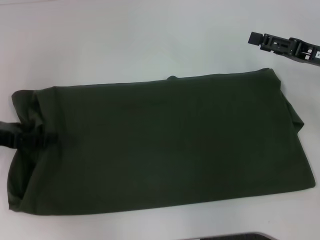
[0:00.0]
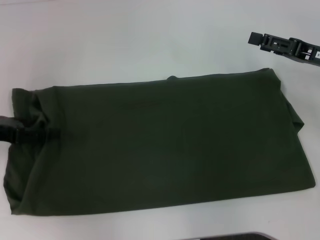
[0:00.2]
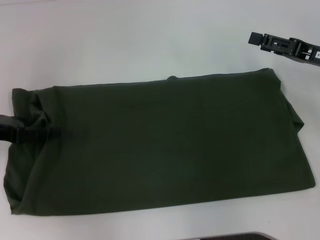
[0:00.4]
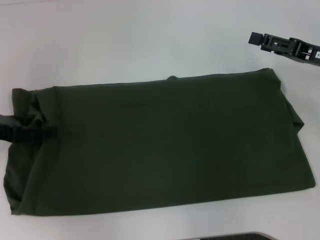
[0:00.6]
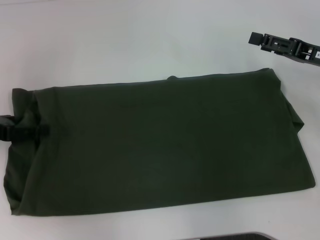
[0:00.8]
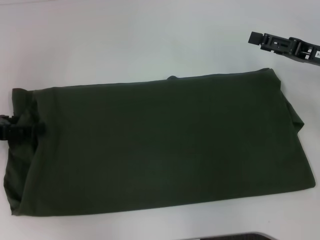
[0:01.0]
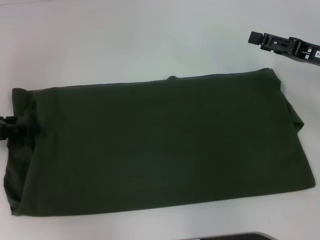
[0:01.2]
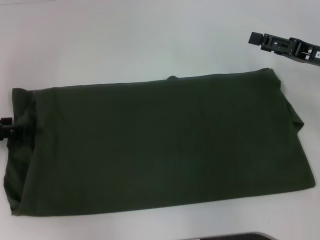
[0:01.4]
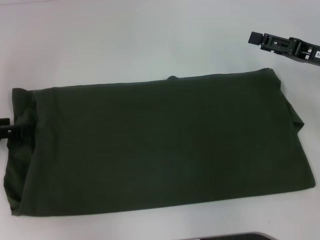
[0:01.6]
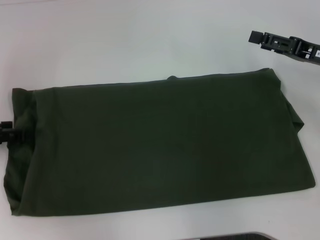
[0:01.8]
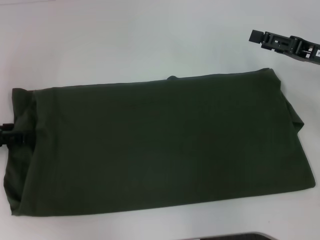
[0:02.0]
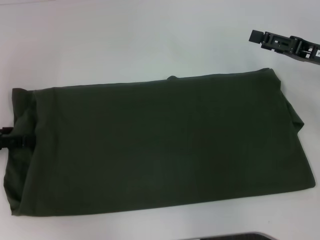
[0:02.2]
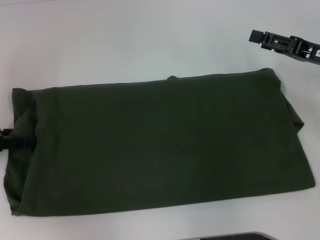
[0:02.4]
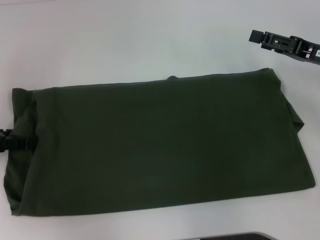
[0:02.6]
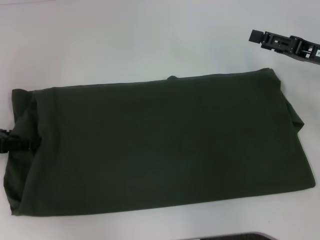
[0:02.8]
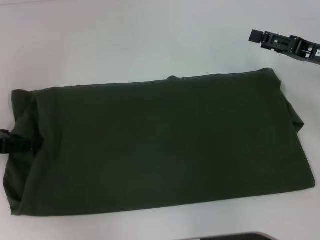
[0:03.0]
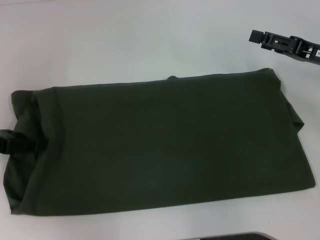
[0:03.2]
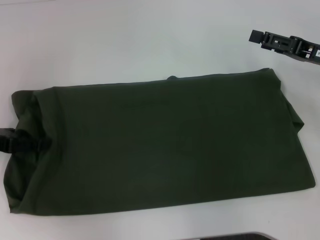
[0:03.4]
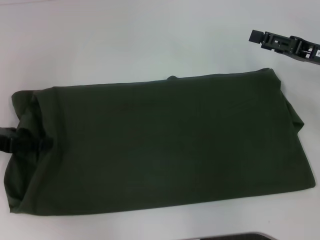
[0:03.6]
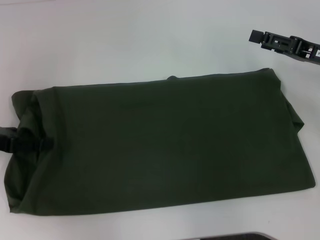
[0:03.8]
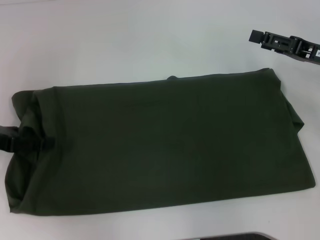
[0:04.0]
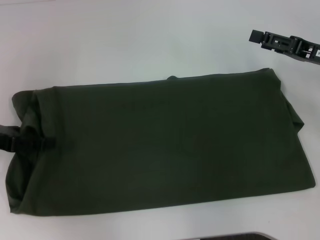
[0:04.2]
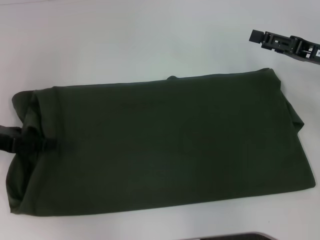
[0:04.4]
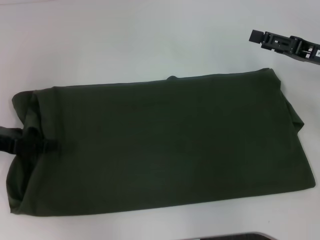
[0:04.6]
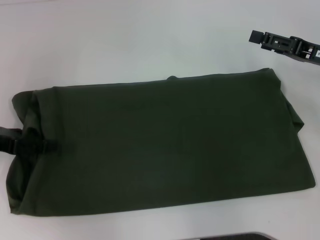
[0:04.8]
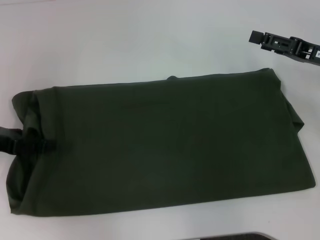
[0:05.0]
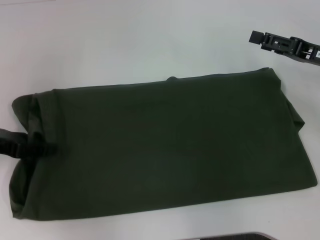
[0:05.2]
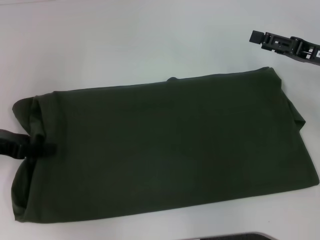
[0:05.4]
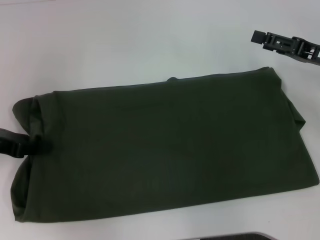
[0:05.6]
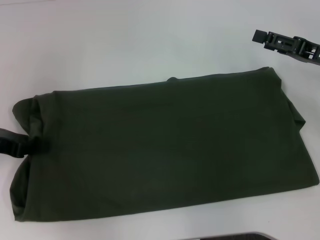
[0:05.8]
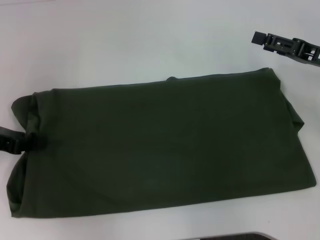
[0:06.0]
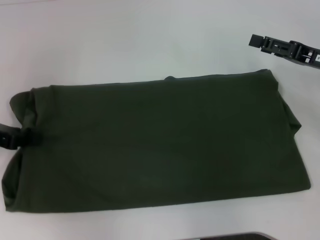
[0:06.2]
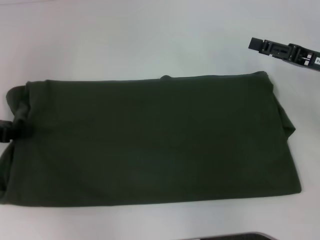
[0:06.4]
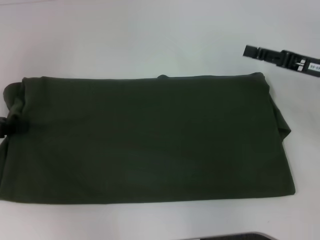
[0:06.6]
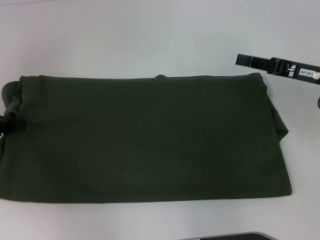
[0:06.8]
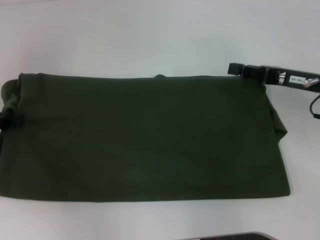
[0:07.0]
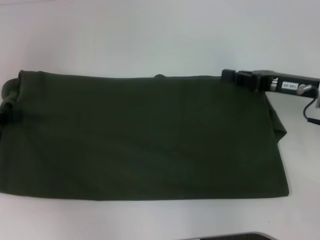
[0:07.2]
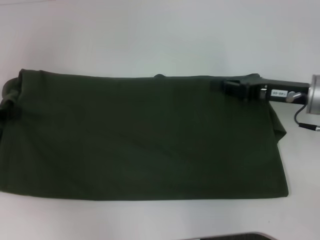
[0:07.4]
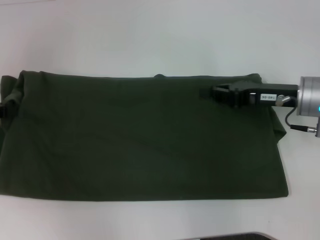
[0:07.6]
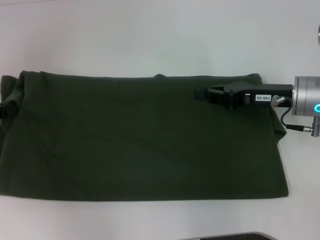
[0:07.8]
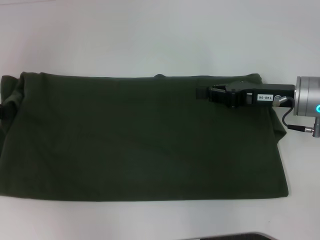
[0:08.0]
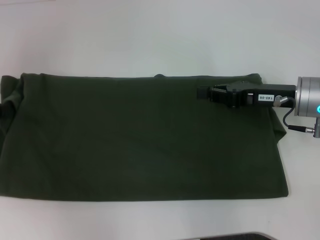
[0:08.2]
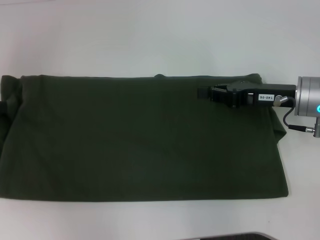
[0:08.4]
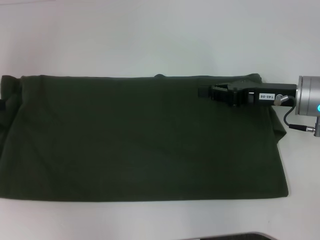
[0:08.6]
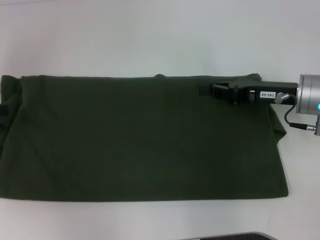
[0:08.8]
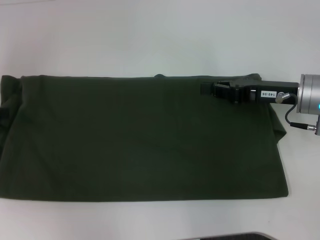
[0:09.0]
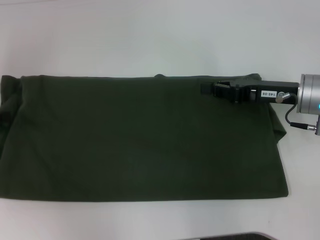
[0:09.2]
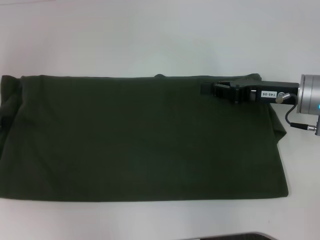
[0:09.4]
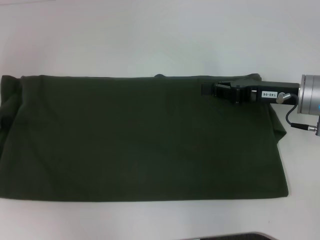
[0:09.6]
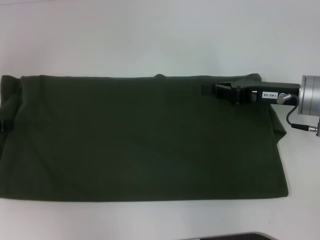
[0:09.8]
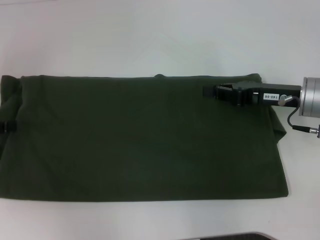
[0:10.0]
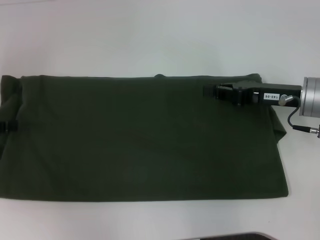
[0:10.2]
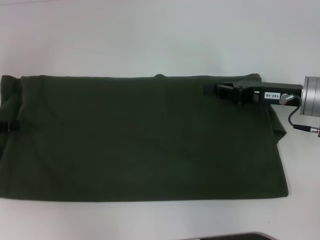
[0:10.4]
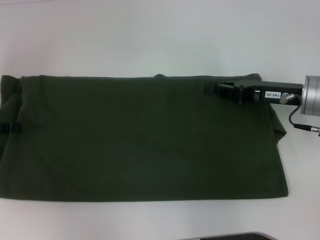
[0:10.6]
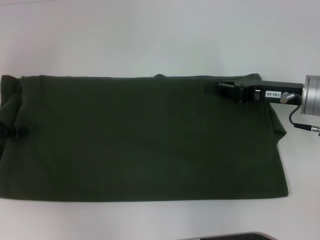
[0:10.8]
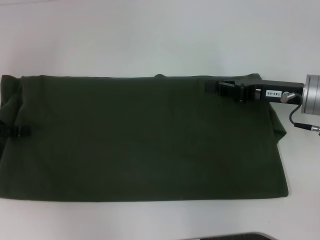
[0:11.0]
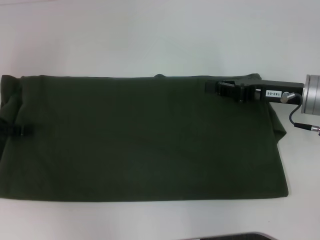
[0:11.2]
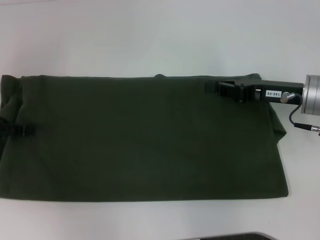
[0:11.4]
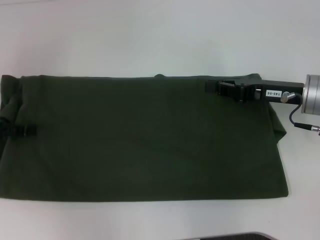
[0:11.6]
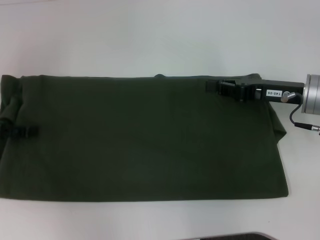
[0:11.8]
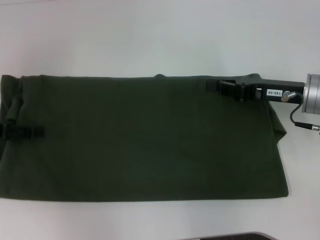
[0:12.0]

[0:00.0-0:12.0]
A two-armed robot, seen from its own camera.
0:00.0 to 0:04.4: The grippers stay close to where they were, moving slightly.
0:04.4 to 0:06.0: The left gripper closes up.
0:06.0 to 0:07.6: The right gripper is displaced to the left by approximately 10 cm, and closes up. The left gripper shifts by about 5 cm.
0:07.6 to 0:09.0: The left gripper opens its fingers.
0:09.0 to 0:12.0: The grippers make only small movements.

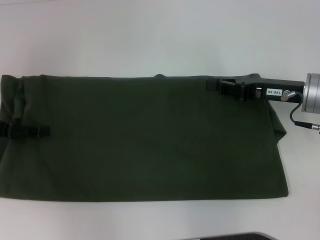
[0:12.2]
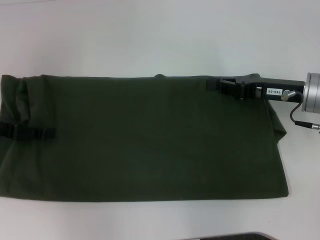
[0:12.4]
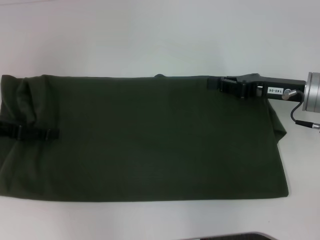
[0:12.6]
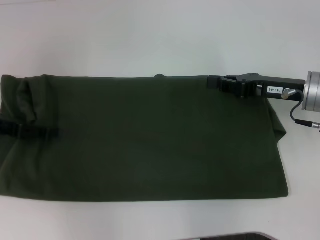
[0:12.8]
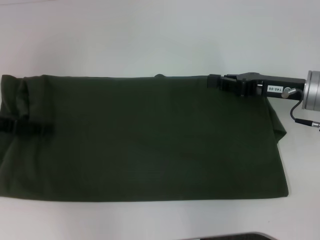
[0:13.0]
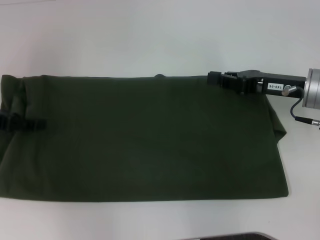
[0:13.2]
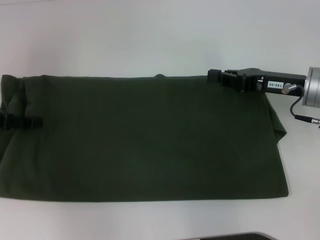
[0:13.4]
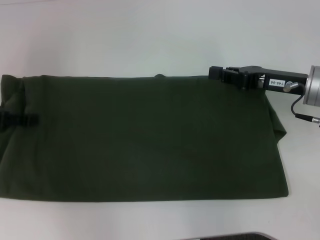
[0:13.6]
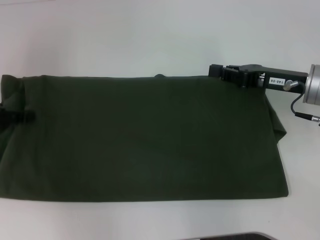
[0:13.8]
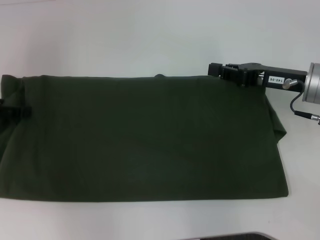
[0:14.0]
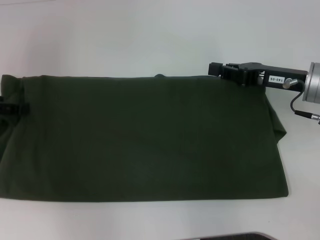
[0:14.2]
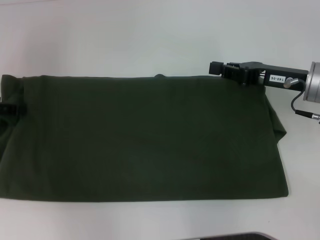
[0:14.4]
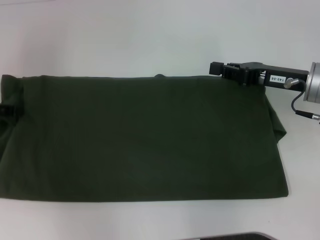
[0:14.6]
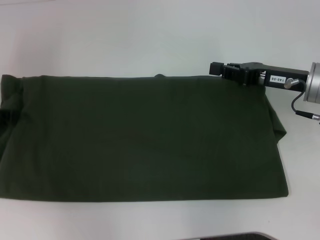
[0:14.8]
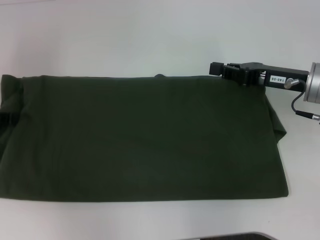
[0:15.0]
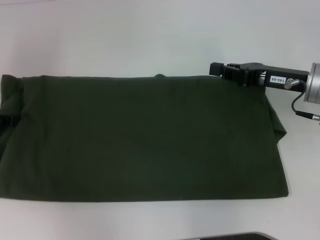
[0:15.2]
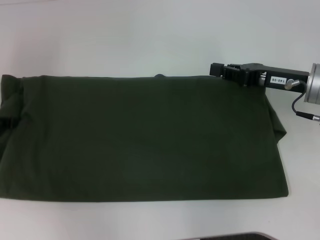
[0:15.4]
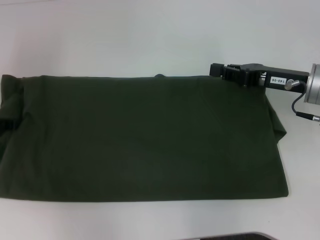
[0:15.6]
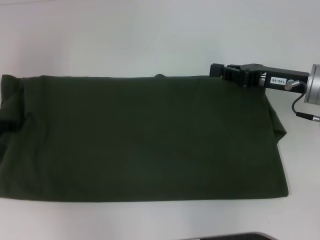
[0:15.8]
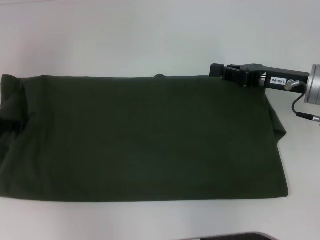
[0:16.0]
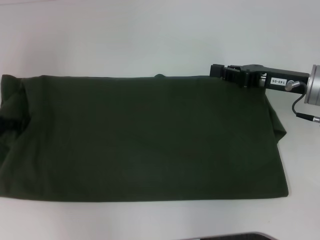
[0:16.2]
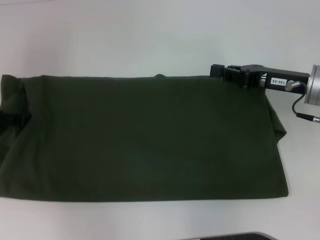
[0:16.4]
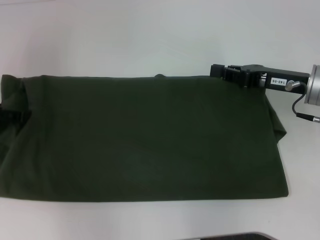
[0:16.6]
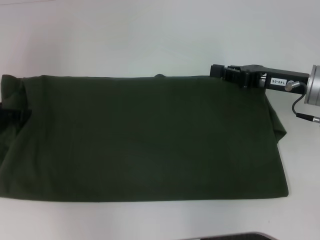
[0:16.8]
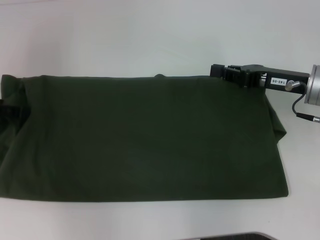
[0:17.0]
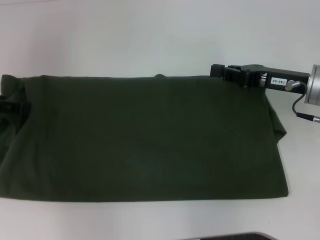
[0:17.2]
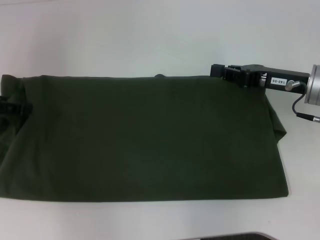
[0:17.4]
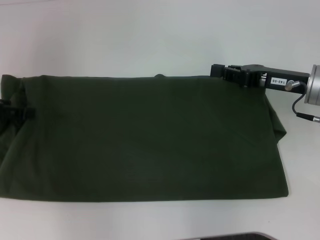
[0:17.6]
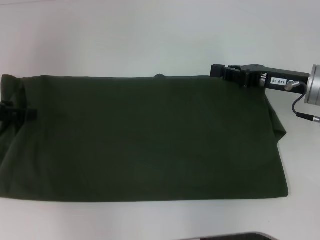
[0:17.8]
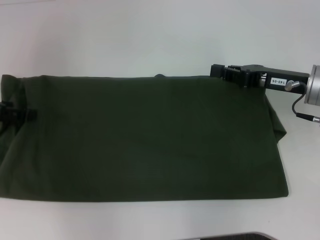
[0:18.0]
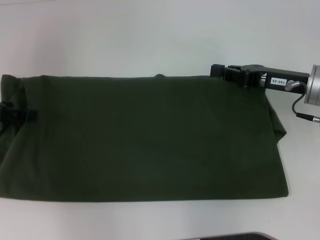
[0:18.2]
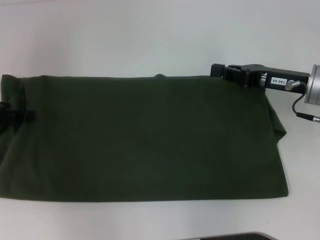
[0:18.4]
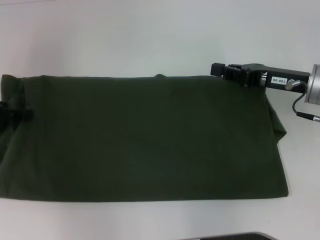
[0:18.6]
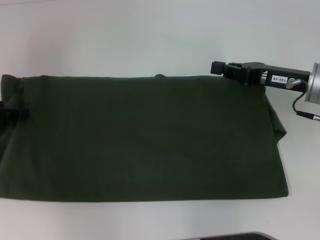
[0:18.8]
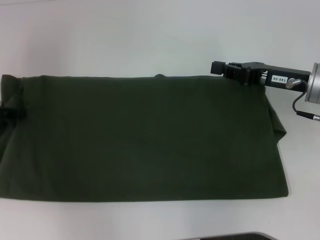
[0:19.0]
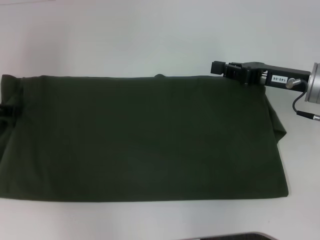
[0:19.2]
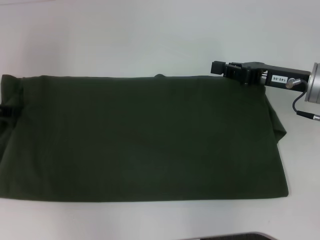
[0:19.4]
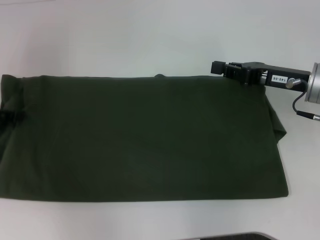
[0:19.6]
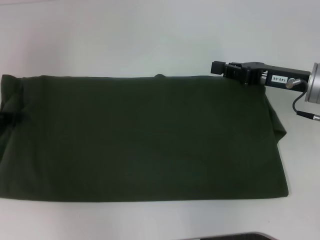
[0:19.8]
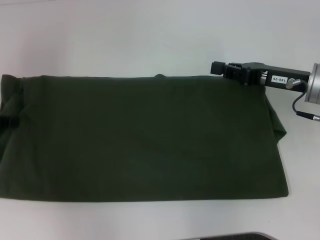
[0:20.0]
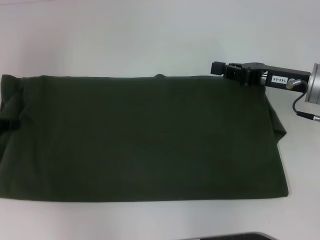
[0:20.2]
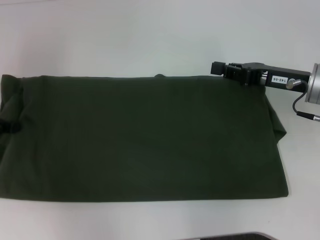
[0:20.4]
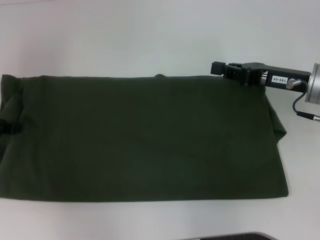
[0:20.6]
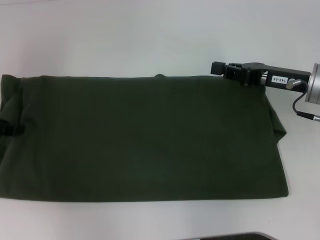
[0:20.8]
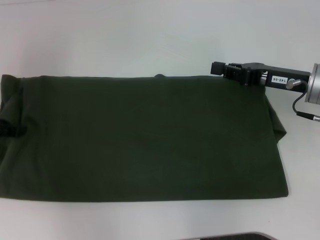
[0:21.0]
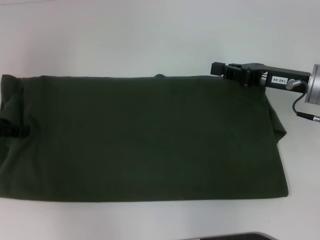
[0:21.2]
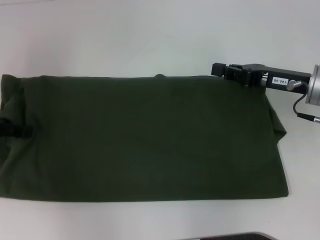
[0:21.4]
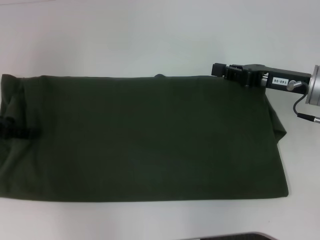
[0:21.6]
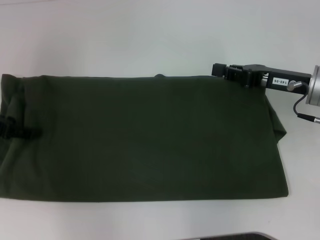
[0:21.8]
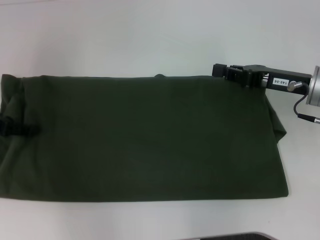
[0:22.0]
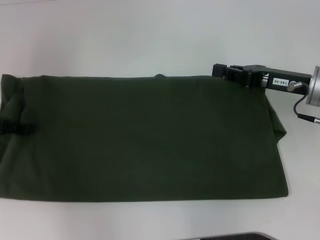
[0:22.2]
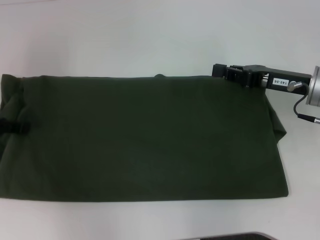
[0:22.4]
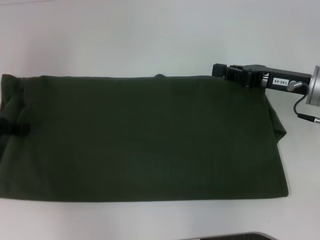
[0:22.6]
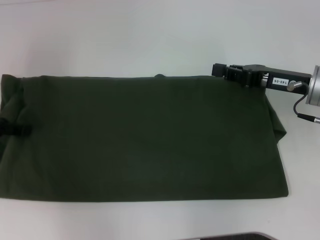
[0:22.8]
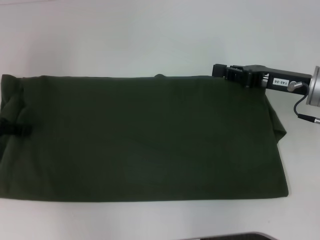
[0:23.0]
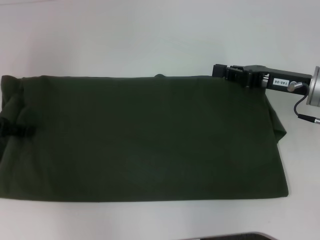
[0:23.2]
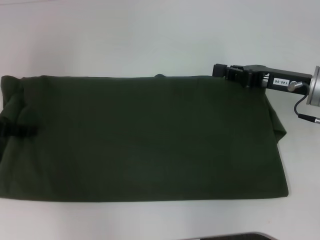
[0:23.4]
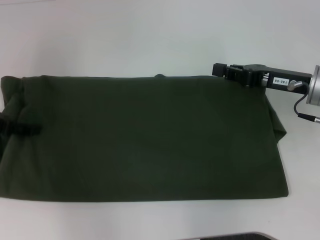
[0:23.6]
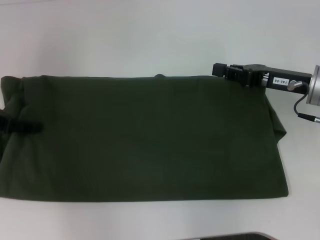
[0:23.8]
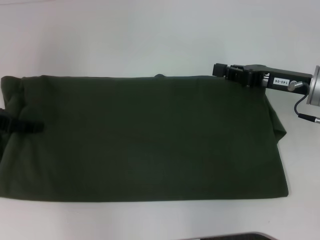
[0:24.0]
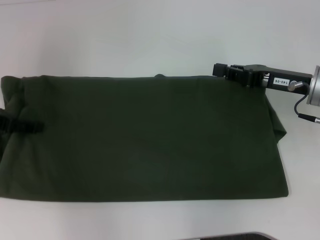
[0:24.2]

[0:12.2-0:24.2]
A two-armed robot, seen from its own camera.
0:12.2 to 0:16.6: The grippers make only small movements.
0:18.2 to 0:19.8: There are only small adjustments of the grippers.
0:19.8 to 0:21.2: The two grippers keep their place.
0:21.2 to 0:22.6: The grippers stay close to where they were, moving slightly.
